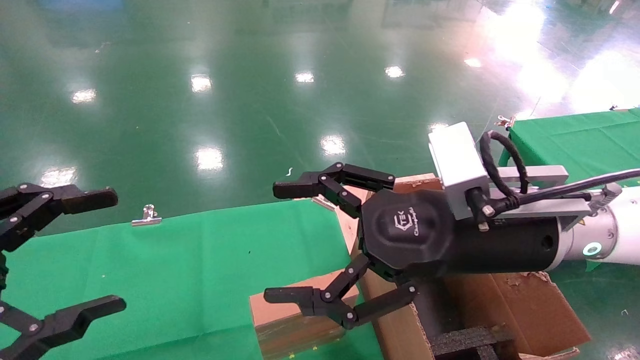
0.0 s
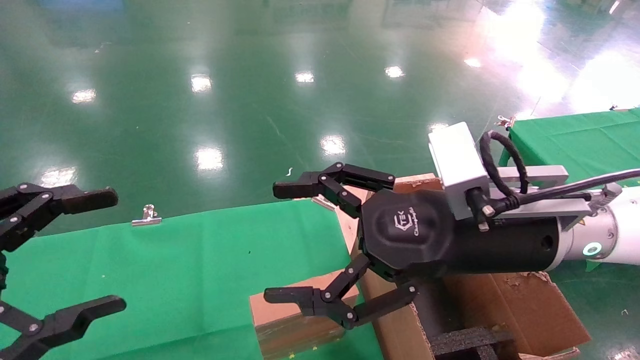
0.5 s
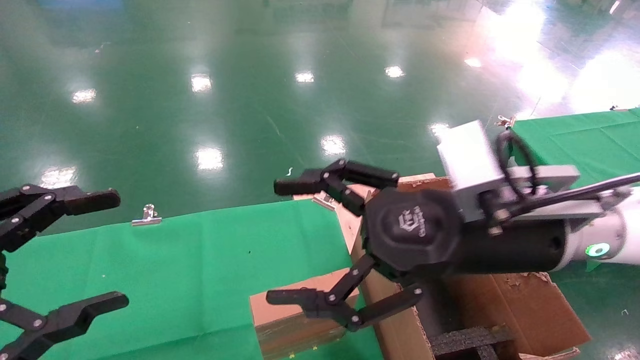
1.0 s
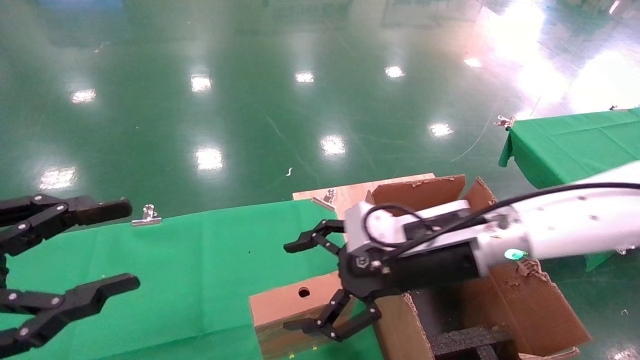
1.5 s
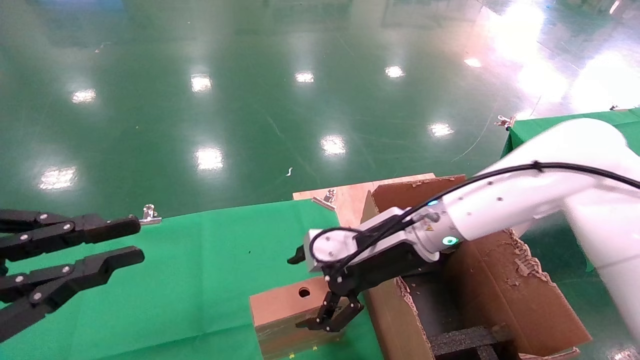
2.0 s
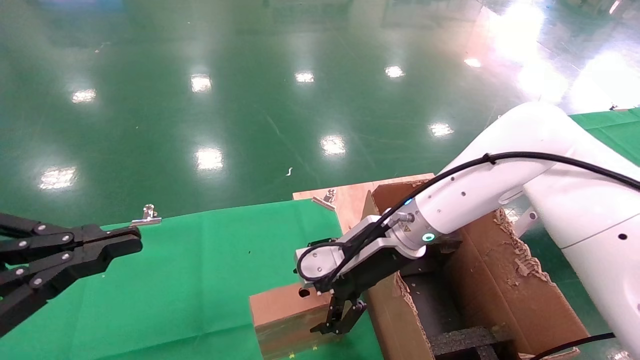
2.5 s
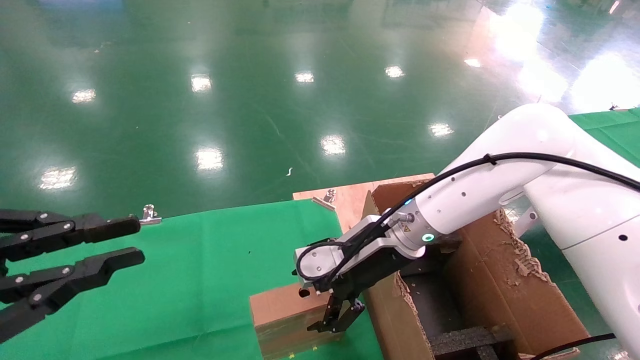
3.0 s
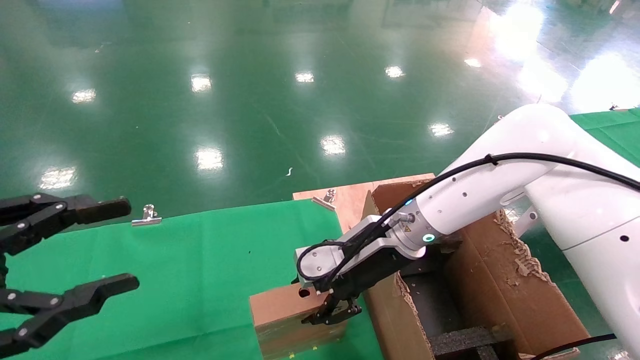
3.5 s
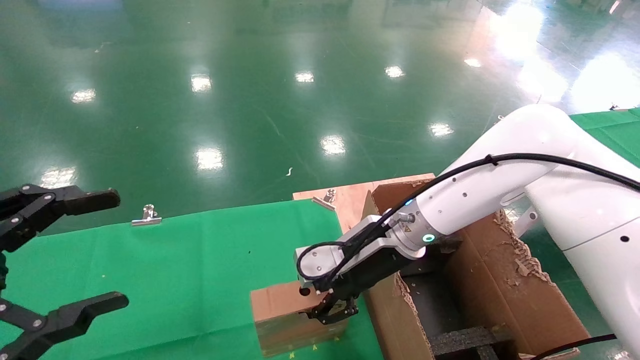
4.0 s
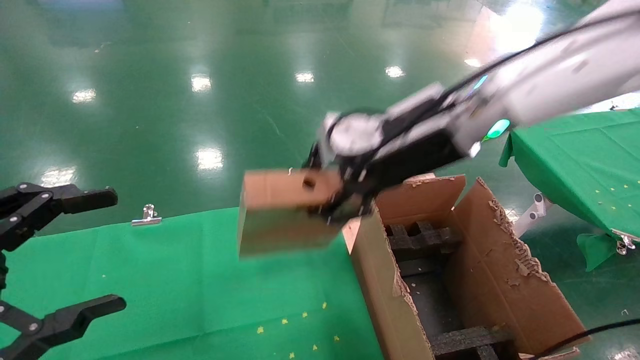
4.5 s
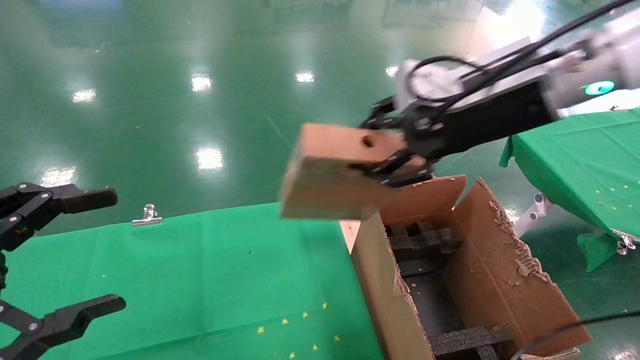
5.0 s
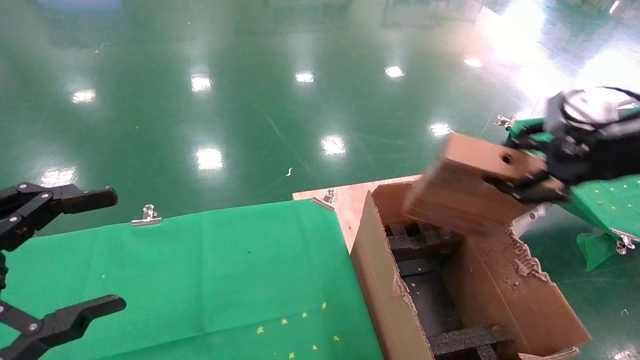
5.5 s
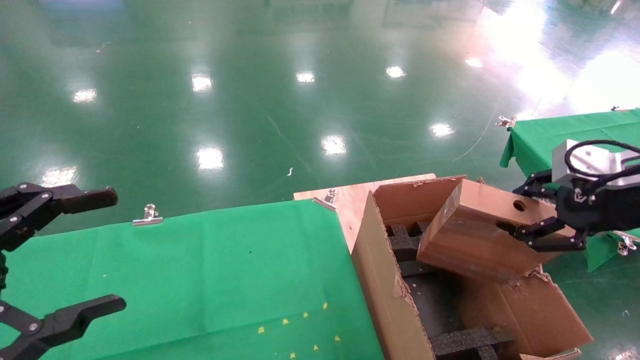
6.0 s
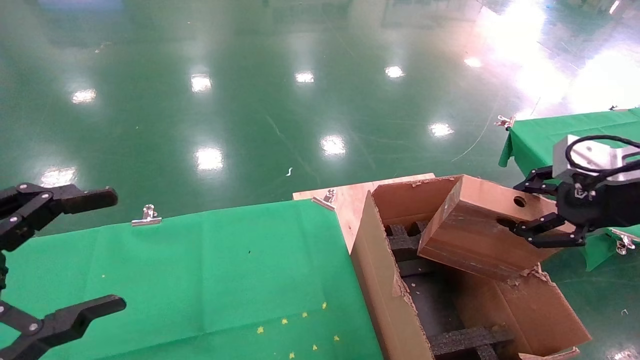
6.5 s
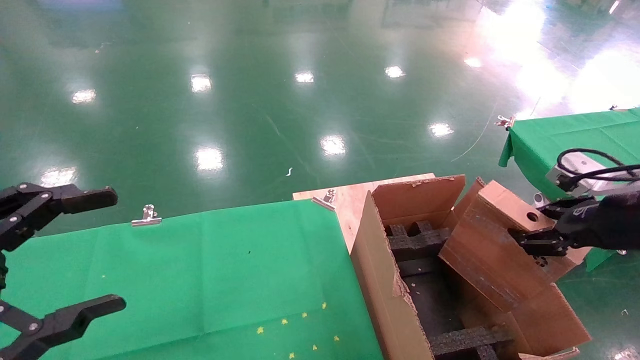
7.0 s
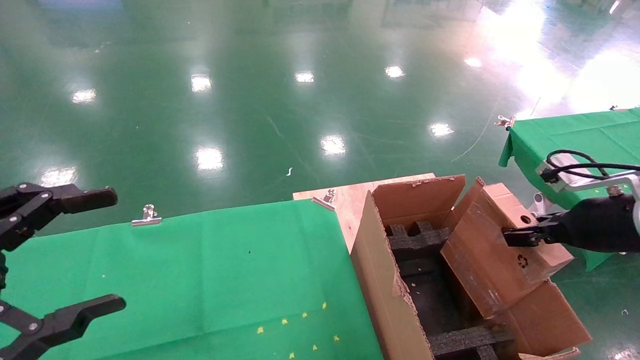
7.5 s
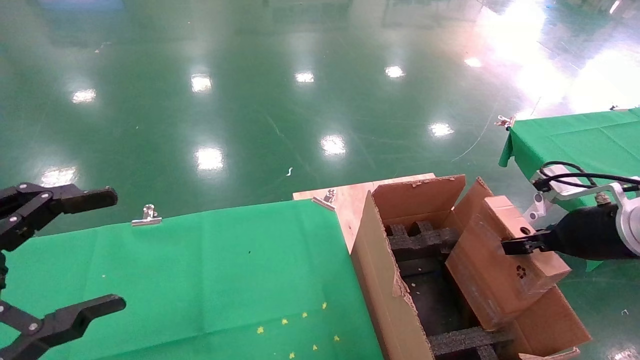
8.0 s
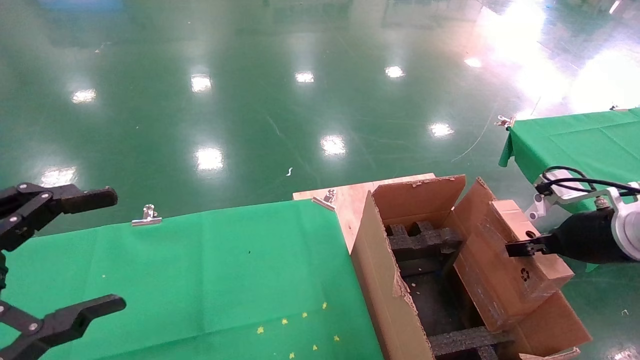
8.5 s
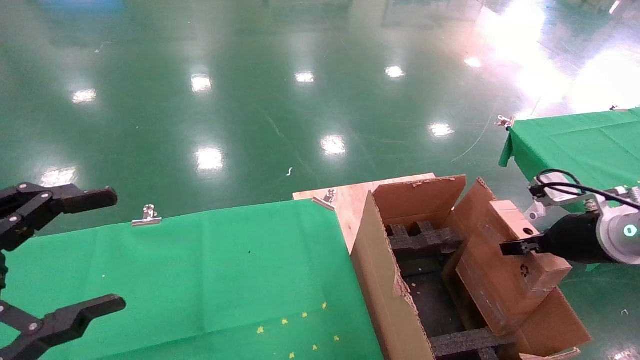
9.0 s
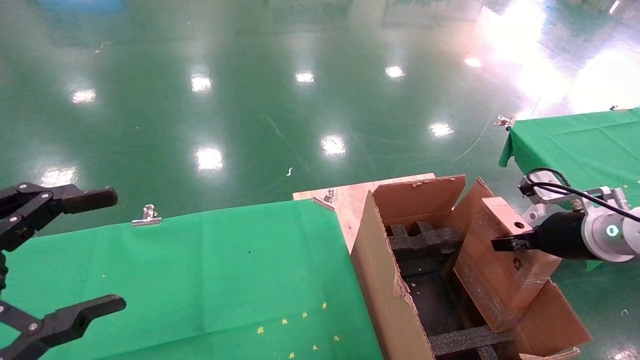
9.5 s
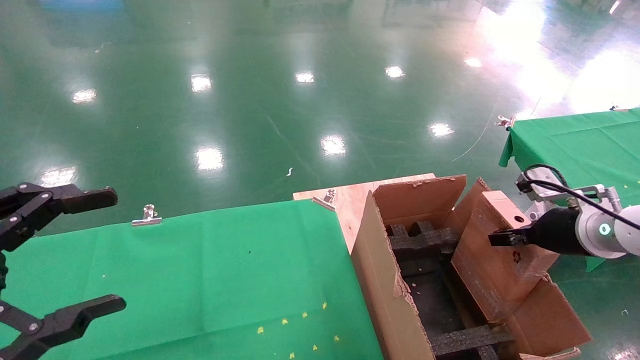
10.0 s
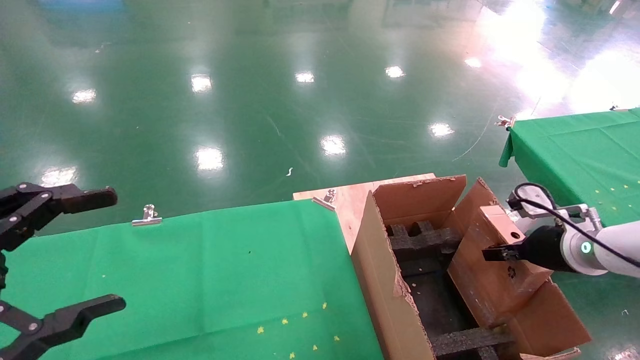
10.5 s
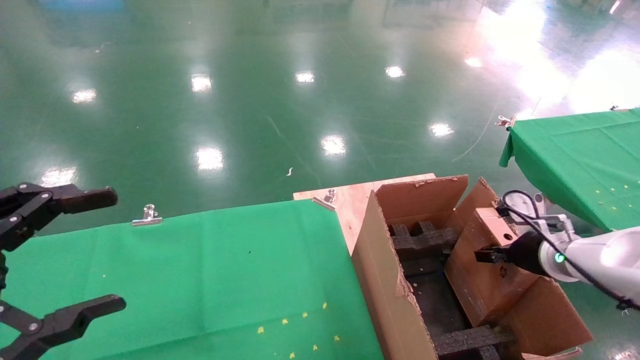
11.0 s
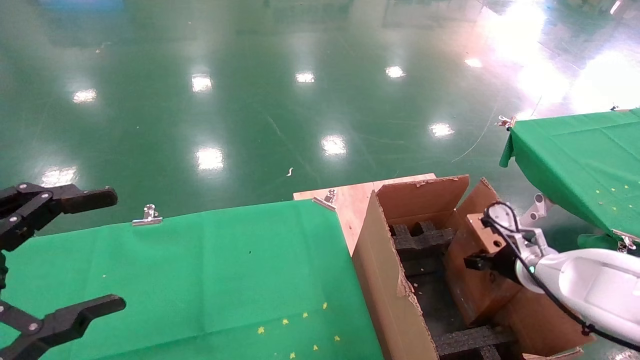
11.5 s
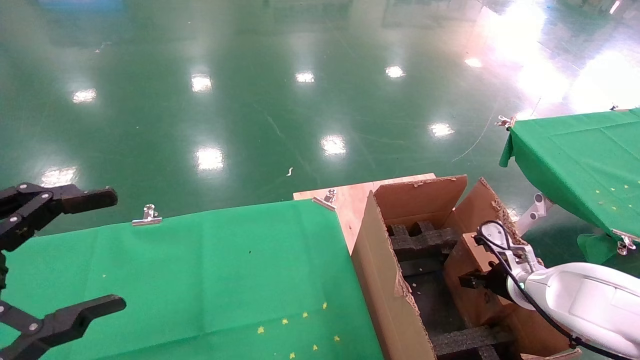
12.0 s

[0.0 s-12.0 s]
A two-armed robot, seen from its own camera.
Task of the whole recording: using a robotic arm to pick up a cardboard box and palace it the carton.
Step, 1.5 to 3.5 s: Pick up the mouse and the power cord paper box.
0.0 to 2.0 s: The left gripper closes up. The right gripper goes roughly 15 cm forward and downward.
2.0 to 4.0 s: The right gripper closes up. Meanwhile the left gripper opens its fingers.
4.0 to 6.0 s: The right gripper is displaced to the right and backward by roughly 30 cm.
6.0 to 8.0 s: The right gripper heads downward and forward, covering about 10 cm.
8.0 to 10.0 s: The right gripper ends up about 5 cm from where it was.
10.0 to 12.0 s: The right gripper moves downward, approximately 15 cm.

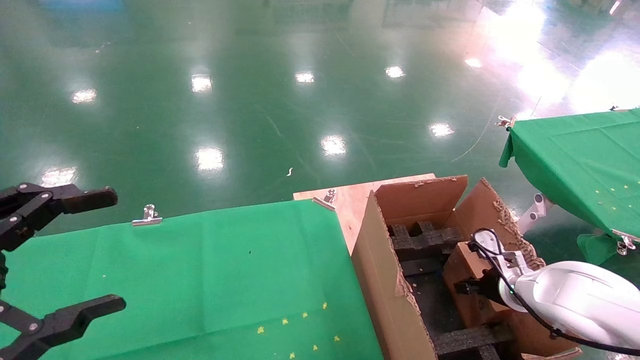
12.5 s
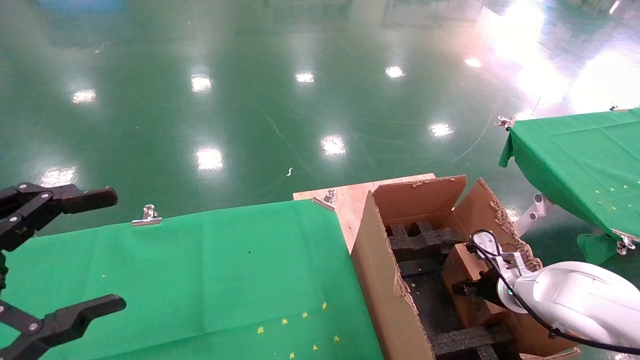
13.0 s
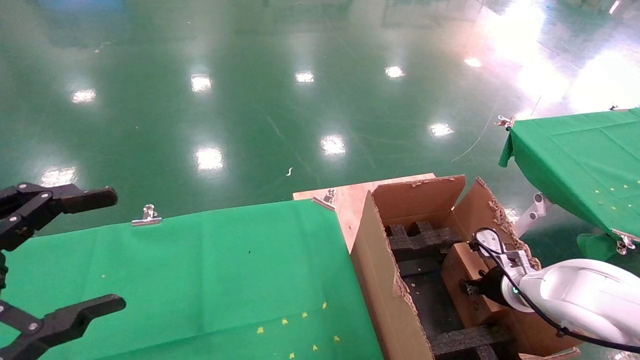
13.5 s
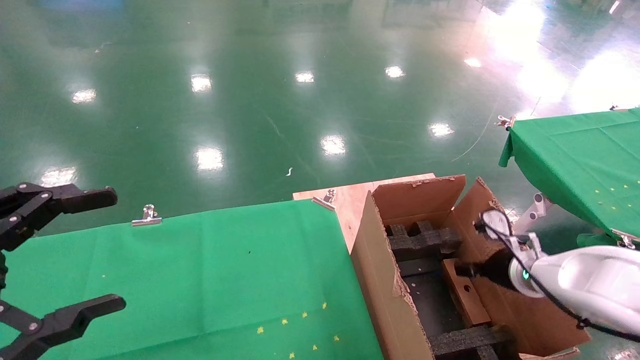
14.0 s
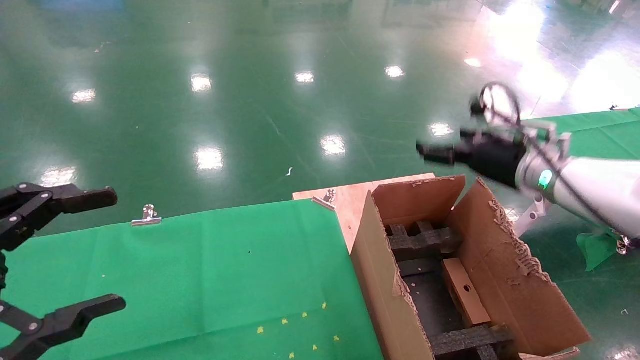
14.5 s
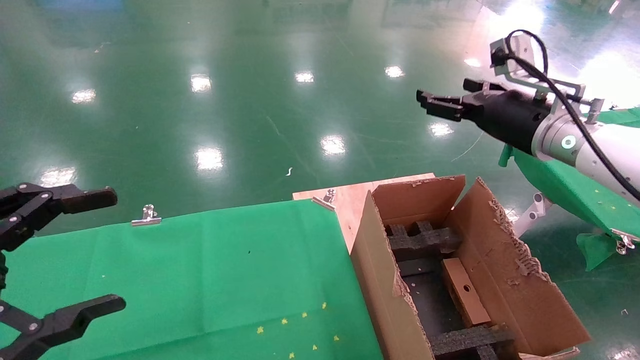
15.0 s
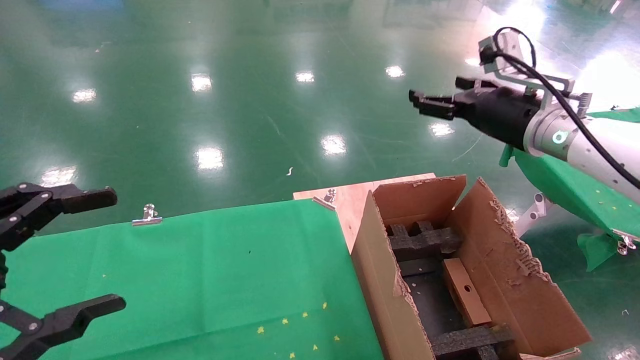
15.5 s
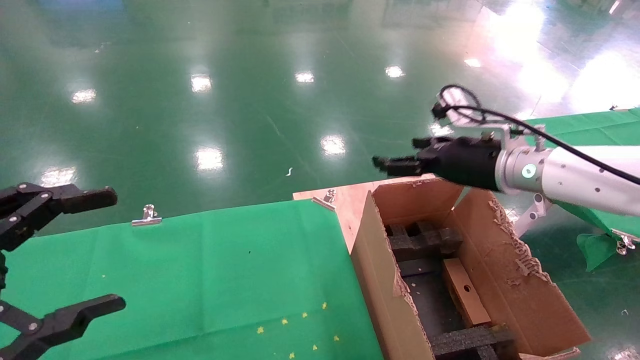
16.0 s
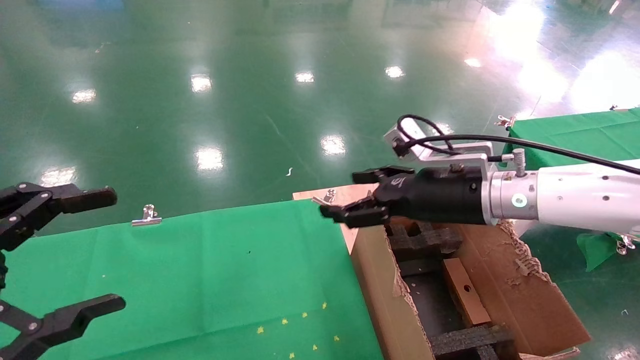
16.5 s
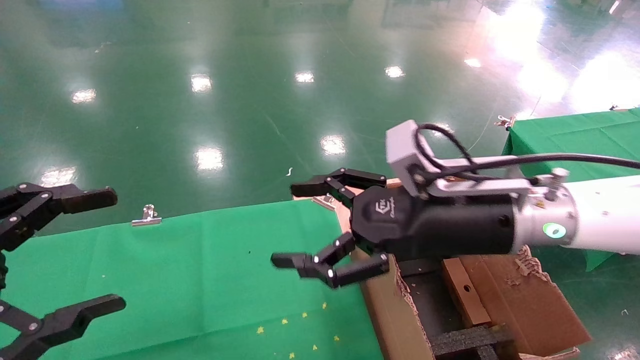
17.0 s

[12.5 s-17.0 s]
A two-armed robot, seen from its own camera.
Task of the whole recording: using a robotic arm to pick up a cardboard box and palace it the carton.
12.5 to 14.5 s: The right gripper moves upward, about 25 cm, and opens up.
14.5 to 17.0 s: The right gripper moves to the left and backward, about 20 cm.

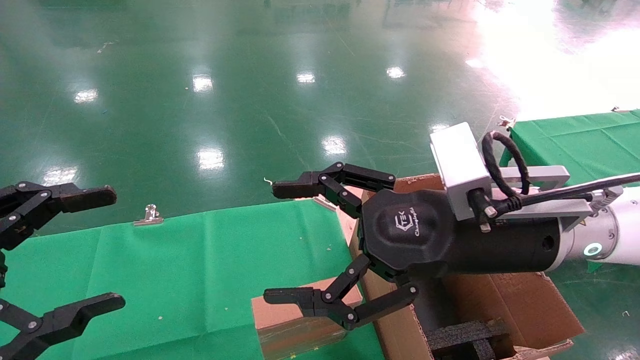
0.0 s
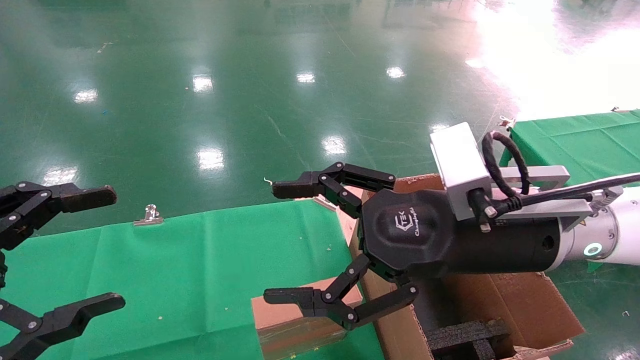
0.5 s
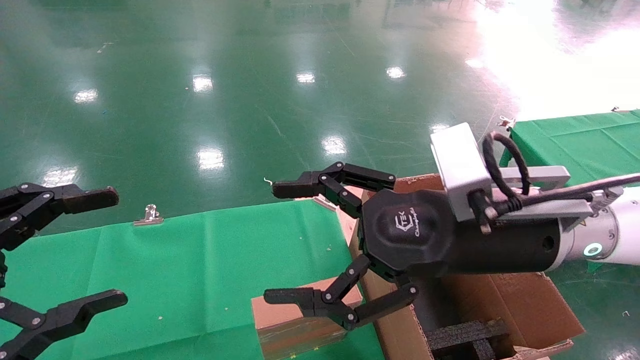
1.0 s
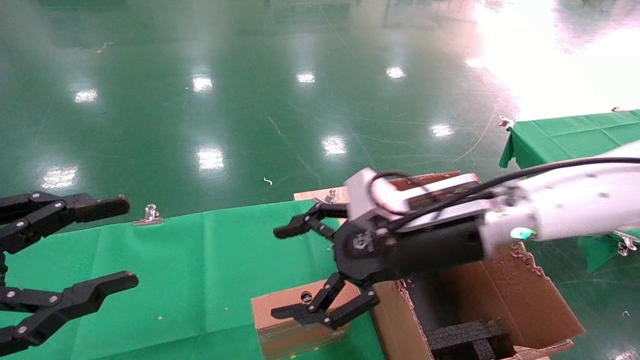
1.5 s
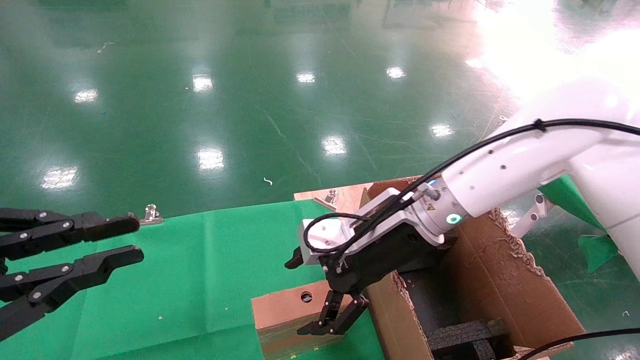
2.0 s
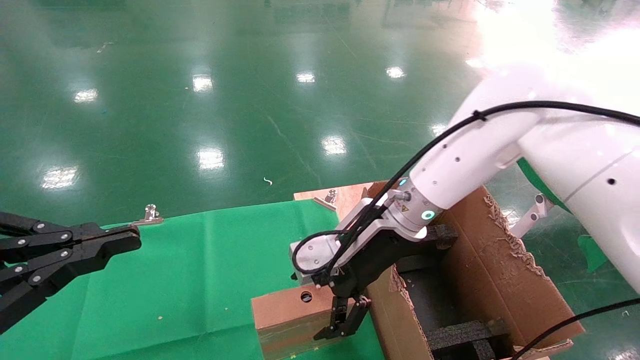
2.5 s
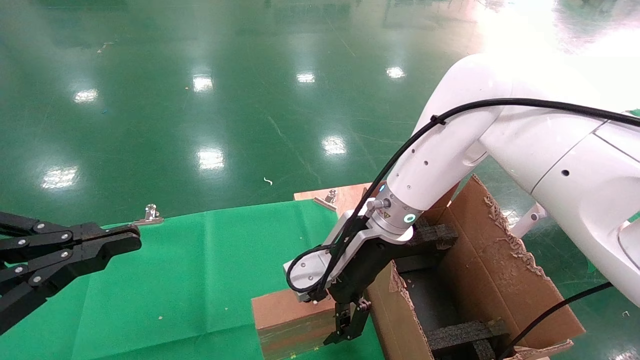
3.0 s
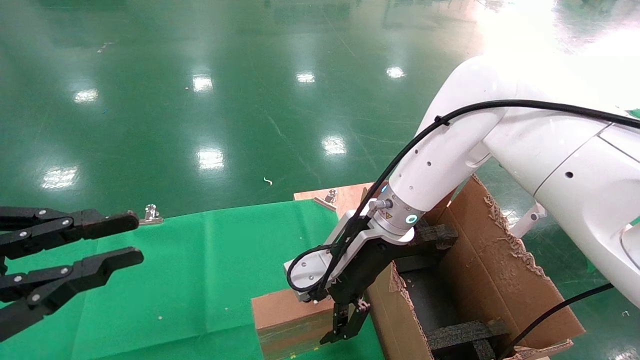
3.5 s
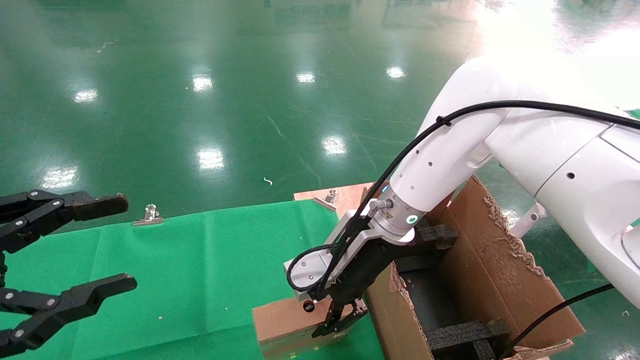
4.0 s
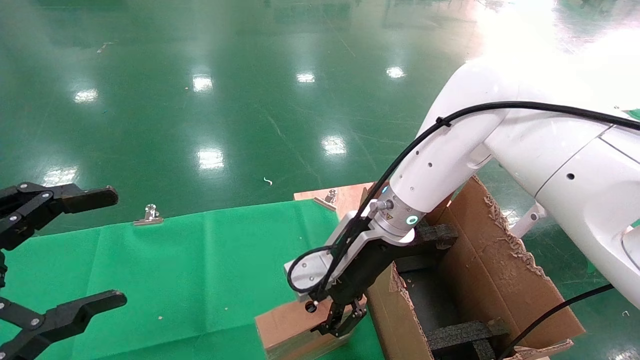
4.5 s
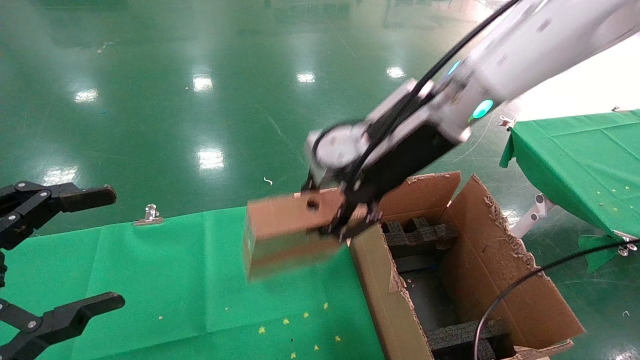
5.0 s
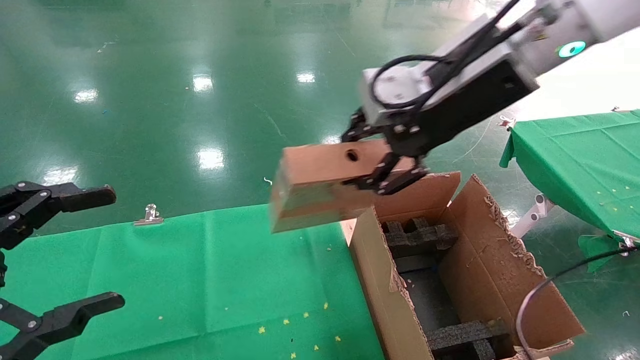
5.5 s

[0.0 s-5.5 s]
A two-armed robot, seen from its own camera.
Task of the whole recording: using a robotic arm to pick up a cardboard box and palace it the carton.
Step, 1.5 to 4.0 s: Pick up the mouse and the power cord paper box.
0.0 to 2.0 s: The left gripper closes. Meanwhile the right gripper heads forward, covering roughly 10 cm.
3.5 to 5.5 s: The left gripper opens its fingers; the right gripper travels upward and to the right by some 20 cm, and closes its fingers.
